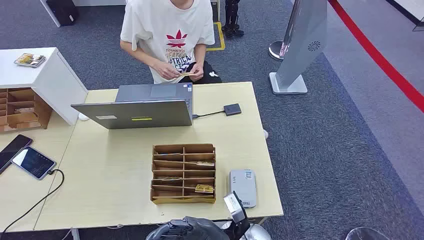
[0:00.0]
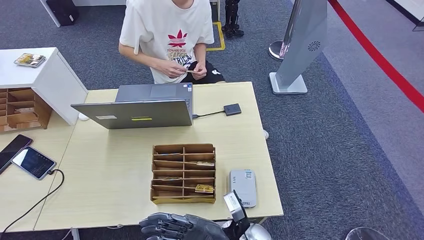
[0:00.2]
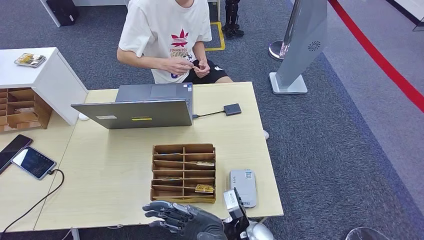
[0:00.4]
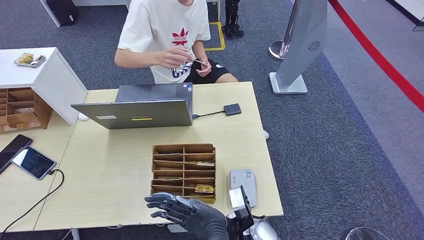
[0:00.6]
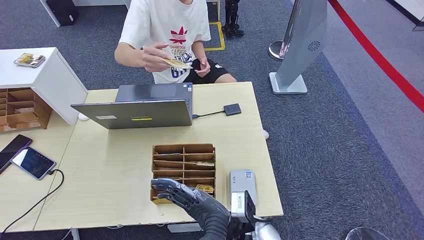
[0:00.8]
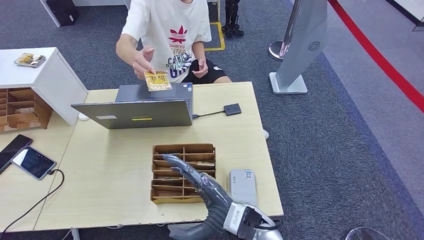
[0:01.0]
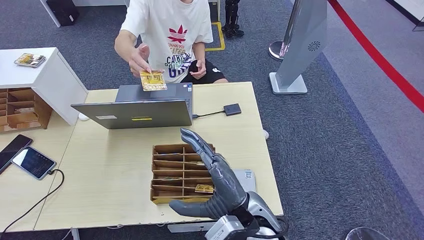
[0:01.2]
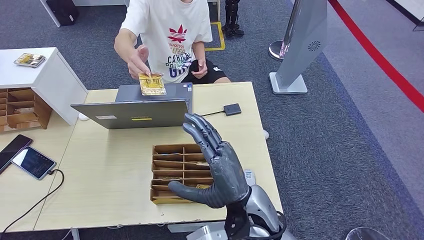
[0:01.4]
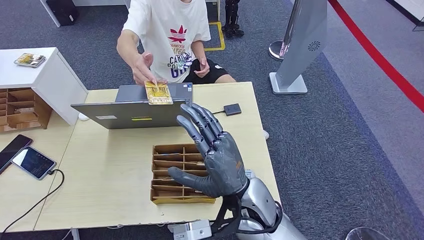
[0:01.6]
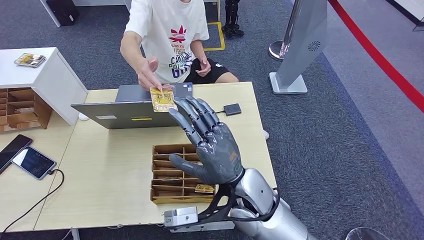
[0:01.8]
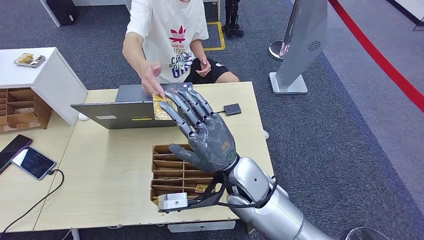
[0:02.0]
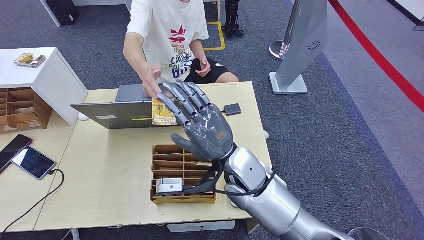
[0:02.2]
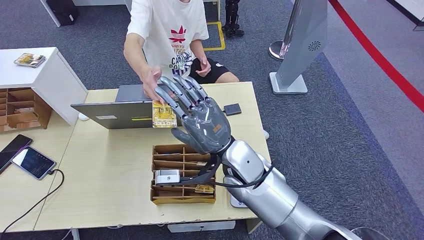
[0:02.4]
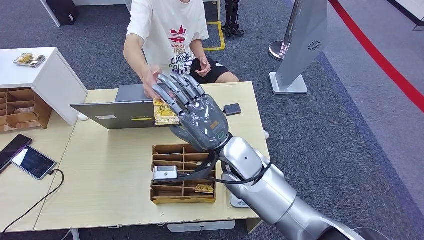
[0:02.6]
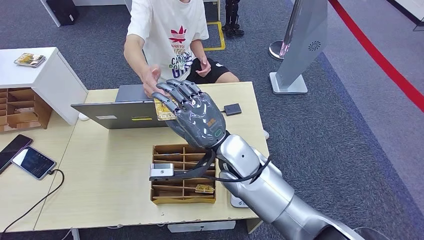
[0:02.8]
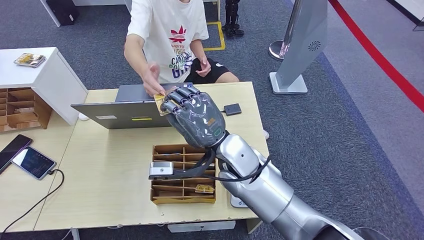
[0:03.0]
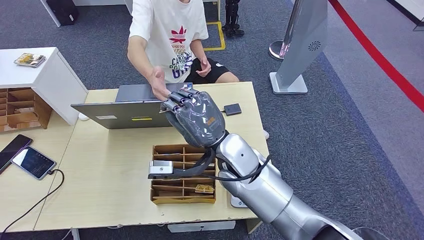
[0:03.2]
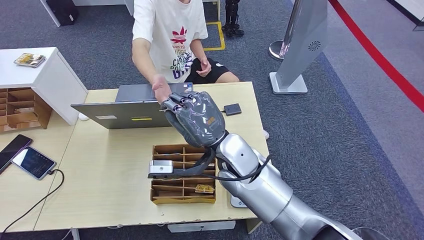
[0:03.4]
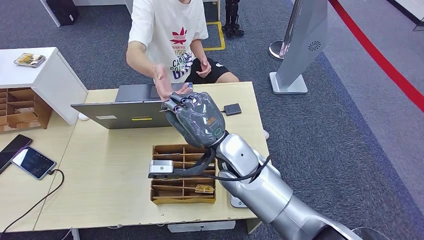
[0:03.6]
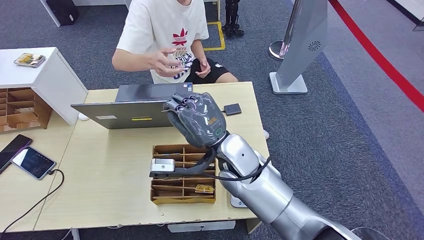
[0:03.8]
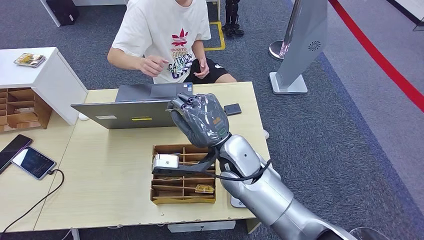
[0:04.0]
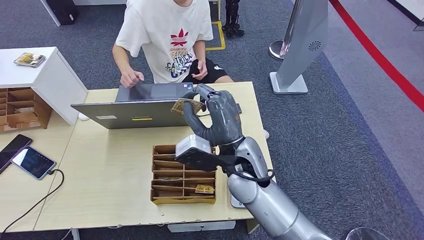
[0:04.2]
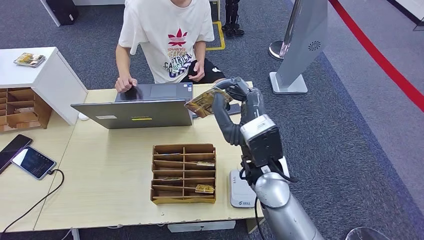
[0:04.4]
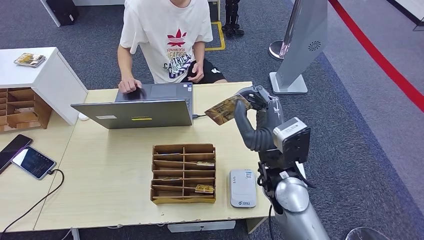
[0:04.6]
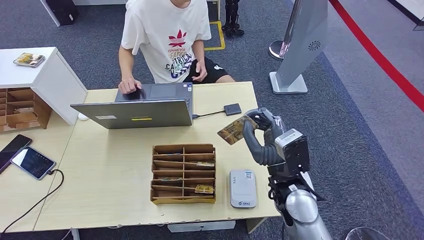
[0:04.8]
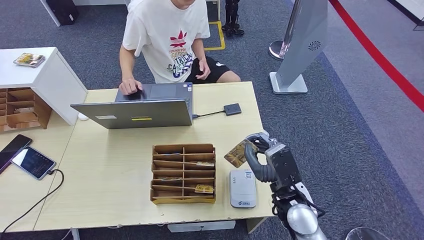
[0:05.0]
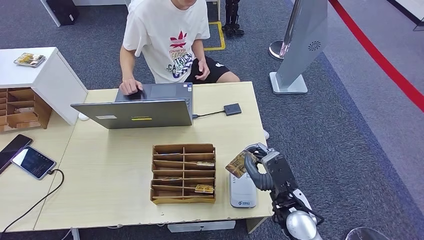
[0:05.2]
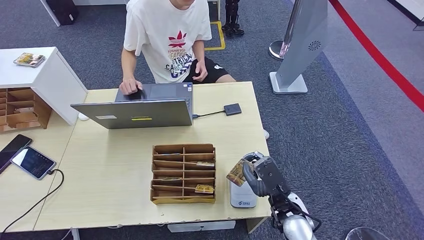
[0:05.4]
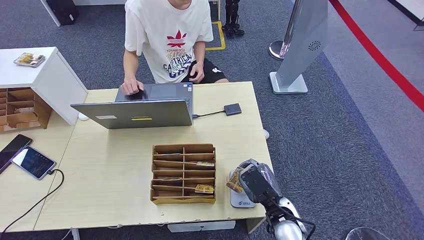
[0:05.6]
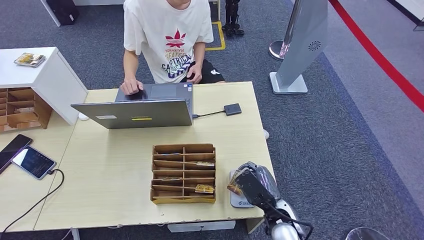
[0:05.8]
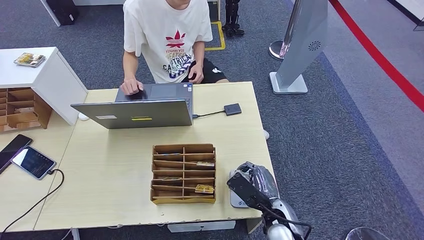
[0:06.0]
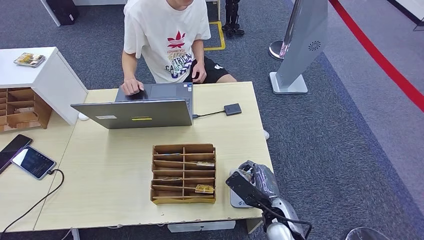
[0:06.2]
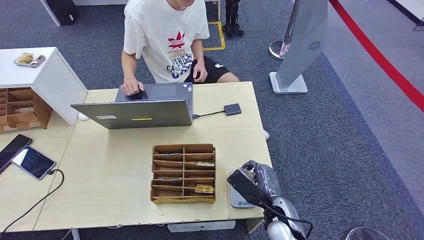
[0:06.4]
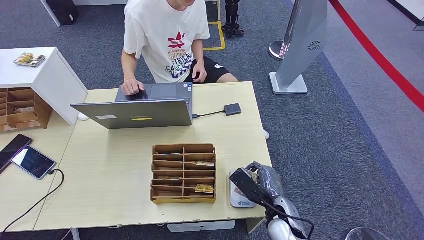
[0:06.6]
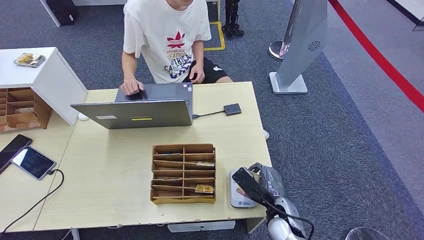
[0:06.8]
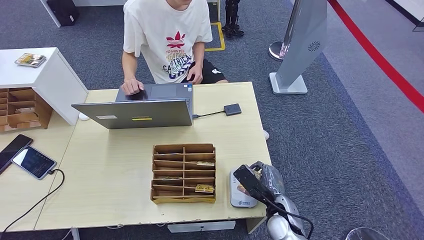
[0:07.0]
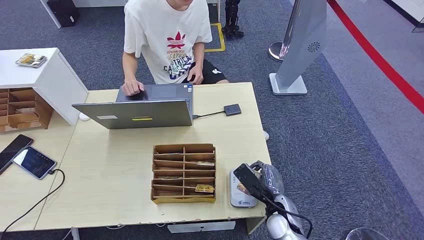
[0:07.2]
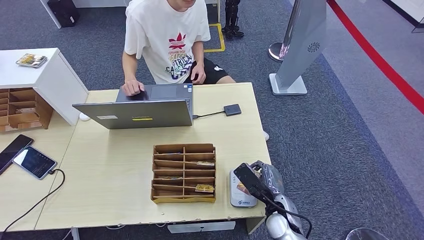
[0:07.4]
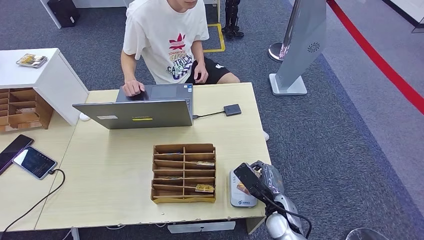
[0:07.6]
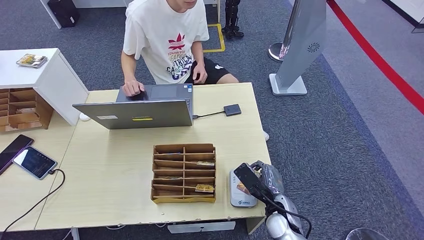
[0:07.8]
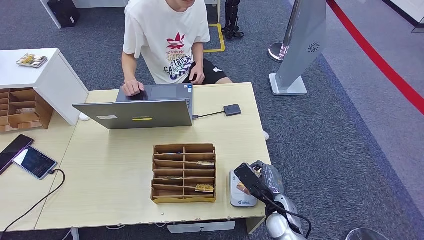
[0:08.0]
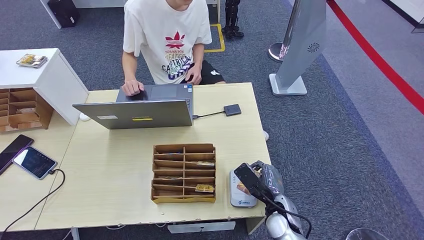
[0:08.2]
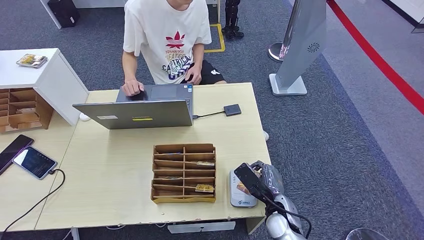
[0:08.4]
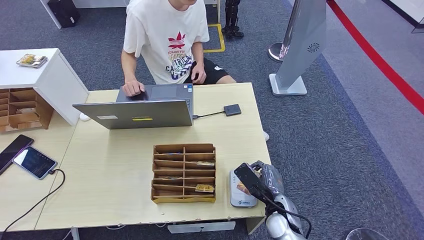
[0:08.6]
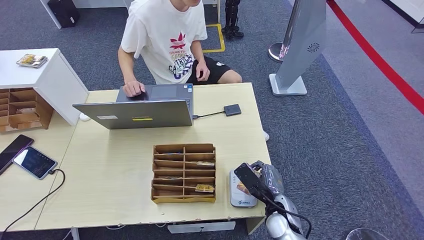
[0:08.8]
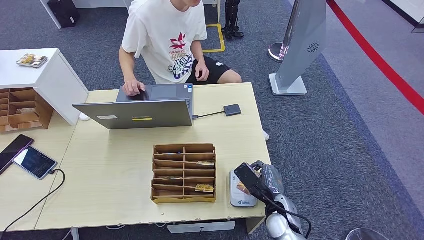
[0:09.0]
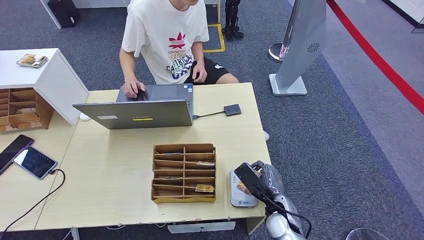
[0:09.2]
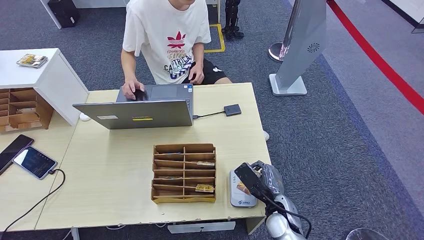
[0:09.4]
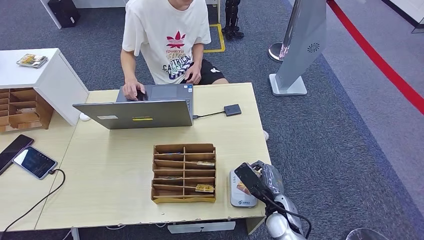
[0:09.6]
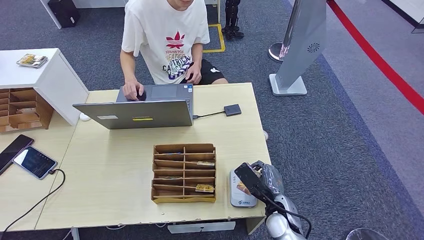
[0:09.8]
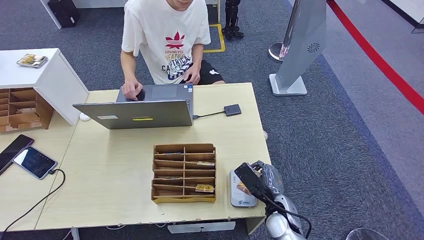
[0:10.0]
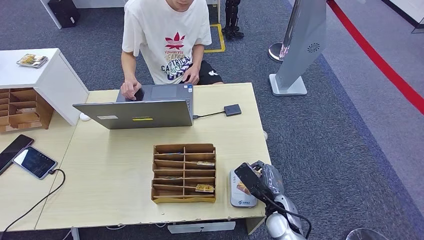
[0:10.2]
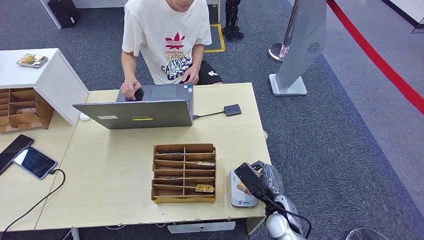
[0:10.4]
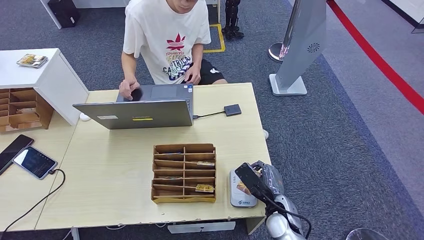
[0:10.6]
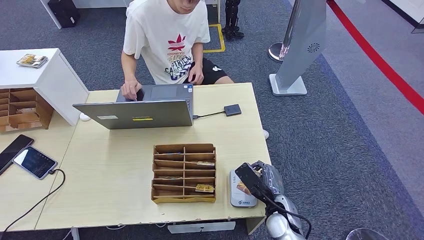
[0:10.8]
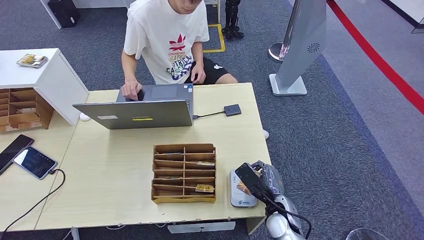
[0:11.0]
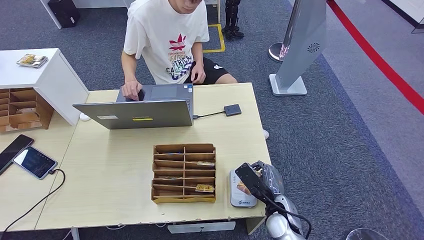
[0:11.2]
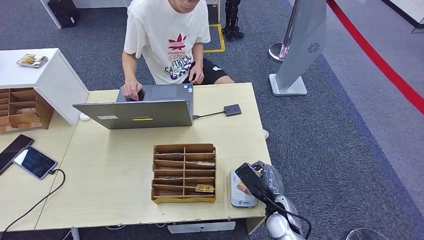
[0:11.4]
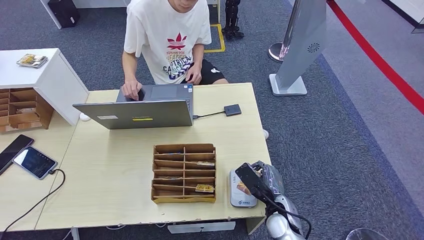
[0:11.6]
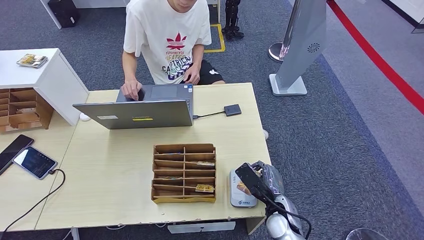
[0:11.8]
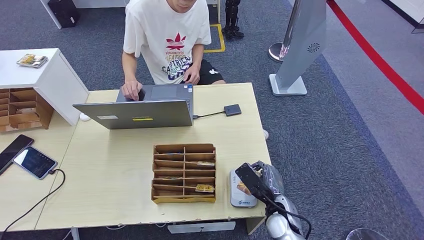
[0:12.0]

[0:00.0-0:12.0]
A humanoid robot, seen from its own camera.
Step, 0:00.0 to 0:04.6: Take the ID card from the person's hand.
Step, 0:04.8 to 0:07.6: Place the ID card on the card reader.
0:01.6 to 0:03.0: The right hand heads forward, covering some 10 cm.
0:03.0 to 0:04.4: The right hand changes place by some 5 cm.
0:04.4 to 0:06.0: The right hand is displaced downward and to the right by about 20 cm.
0:06.0 to 0:07.6: There are only small adjustments of the hands.
0:07.6 to 0:12.0: Neither hand changes place.

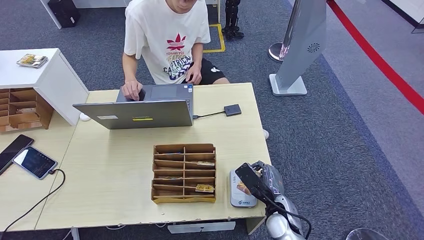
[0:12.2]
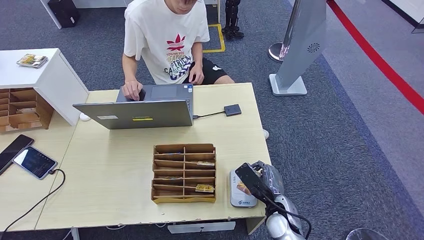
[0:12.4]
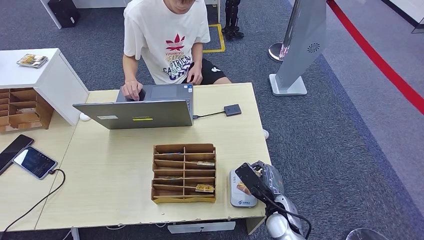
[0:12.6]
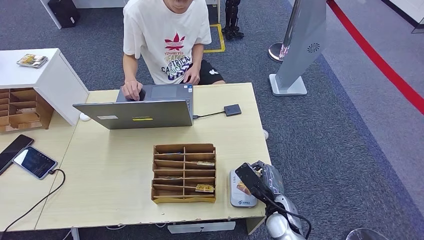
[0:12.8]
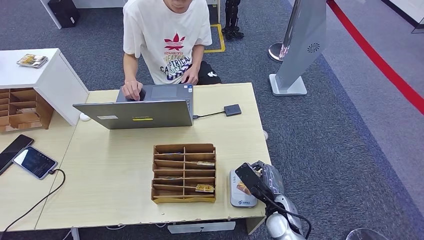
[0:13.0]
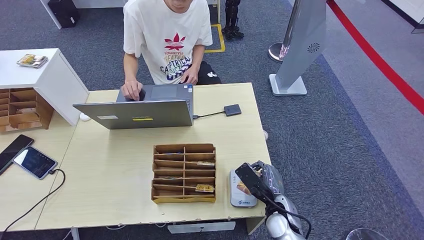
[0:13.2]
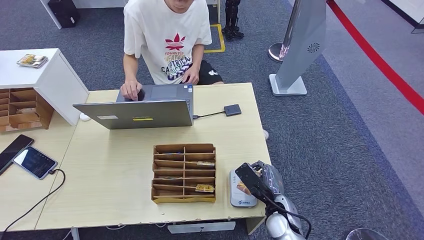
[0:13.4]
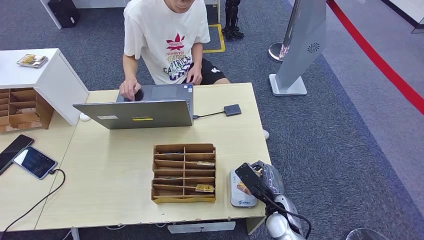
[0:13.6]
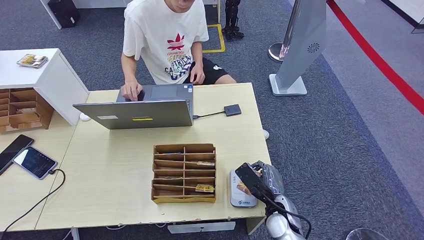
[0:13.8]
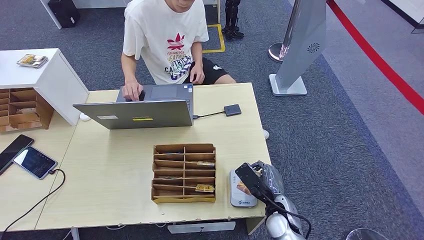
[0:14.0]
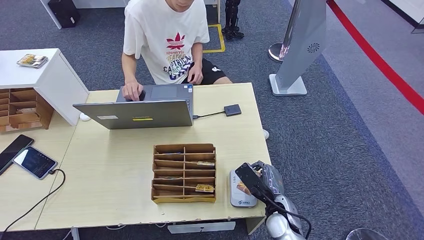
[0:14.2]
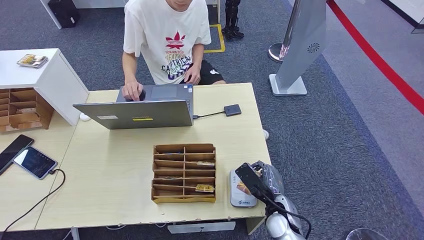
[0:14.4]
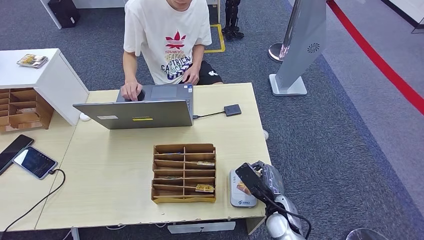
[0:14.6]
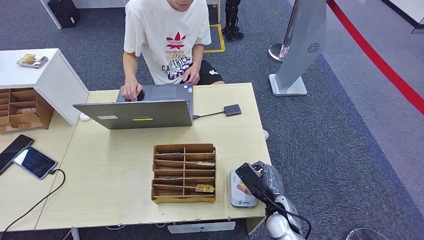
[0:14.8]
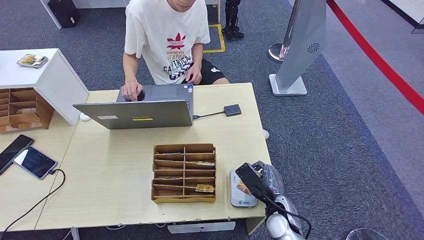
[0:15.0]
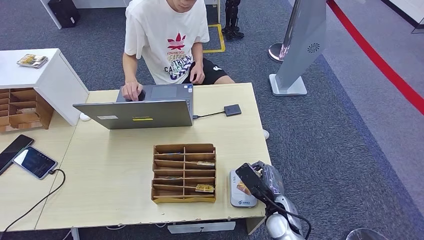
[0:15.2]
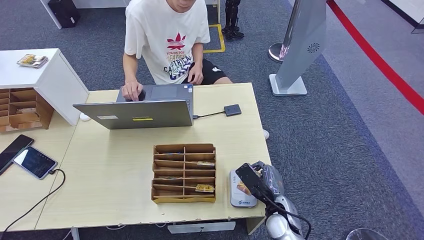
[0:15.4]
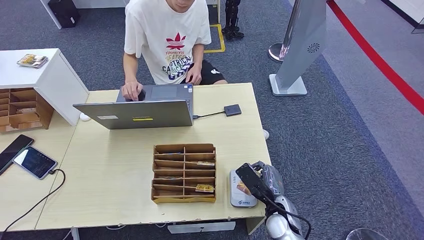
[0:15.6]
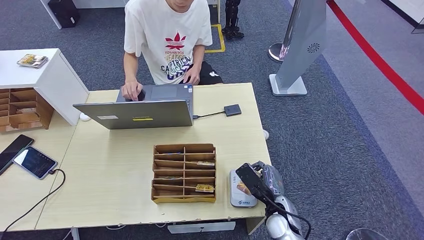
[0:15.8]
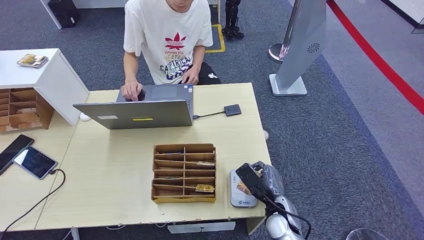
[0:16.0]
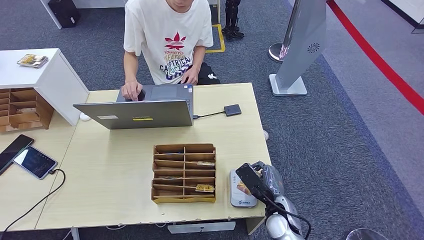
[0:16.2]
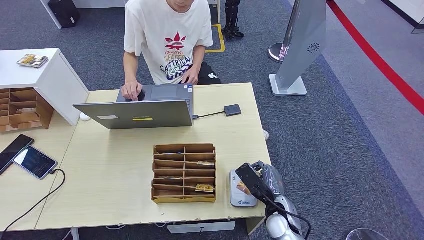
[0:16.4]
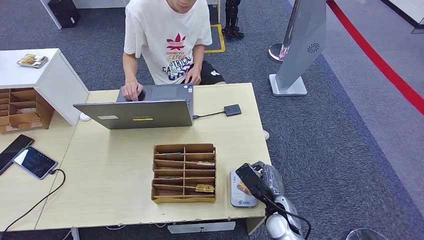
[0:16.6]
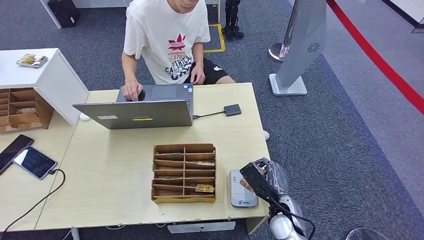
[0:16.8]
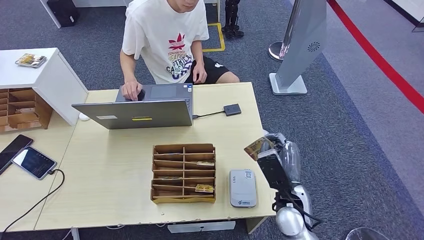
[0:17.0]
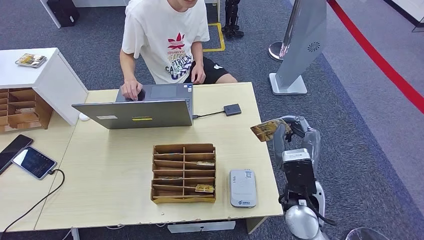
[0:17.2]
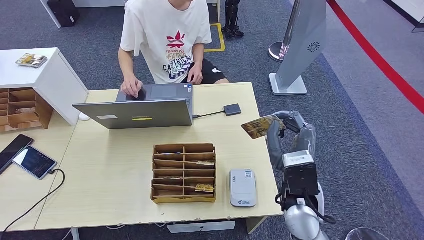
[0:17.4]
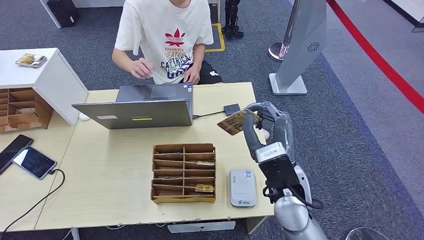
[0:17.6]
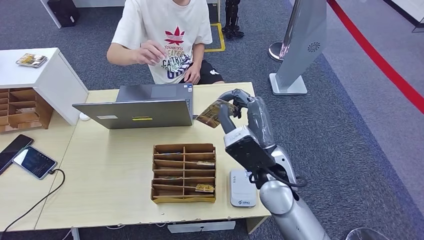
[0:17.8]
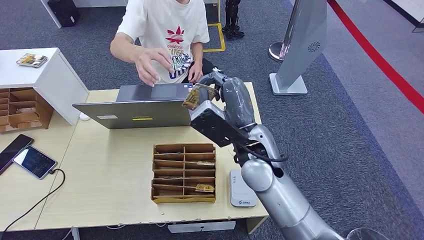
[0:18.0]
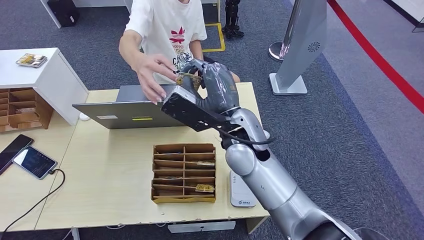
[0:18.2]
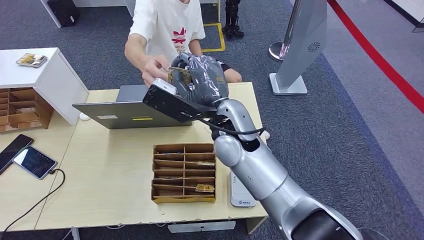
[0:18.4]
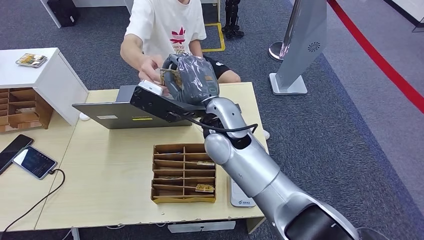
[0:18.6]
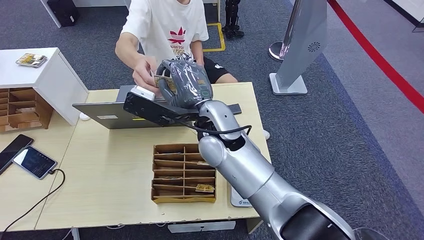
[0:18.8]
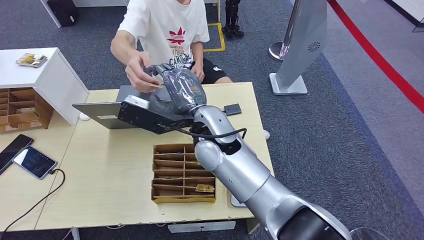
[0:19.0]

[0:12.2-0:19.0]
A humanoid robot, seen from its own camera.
0:12.2 to 0:16.2: Both hands stay about where they are.
0:16.2 to 0:17.6: The right hand goes about 20 cm upward.
0:17.6 to 0:19.0: The right hand heads to the left, forward and upward, covering approximately 20 cm.
